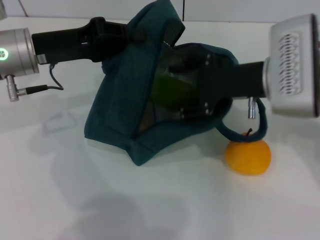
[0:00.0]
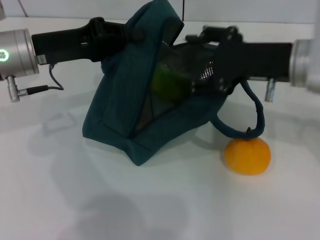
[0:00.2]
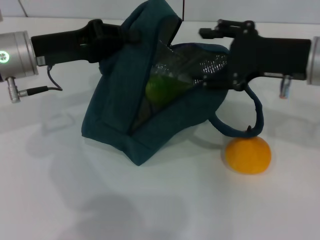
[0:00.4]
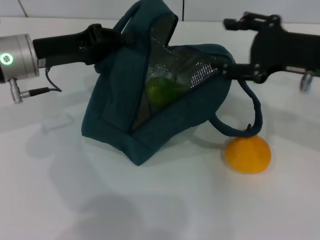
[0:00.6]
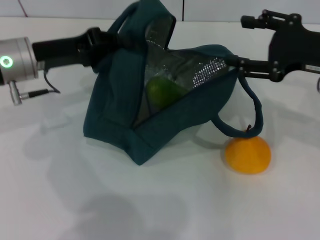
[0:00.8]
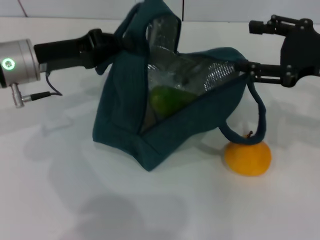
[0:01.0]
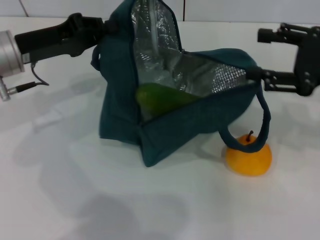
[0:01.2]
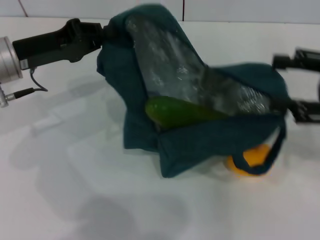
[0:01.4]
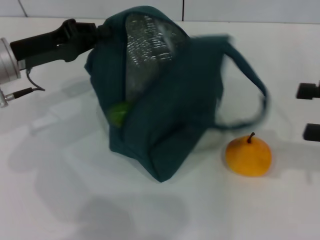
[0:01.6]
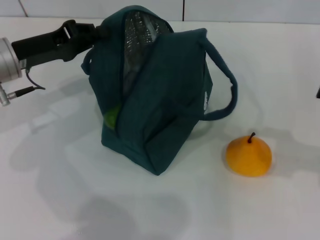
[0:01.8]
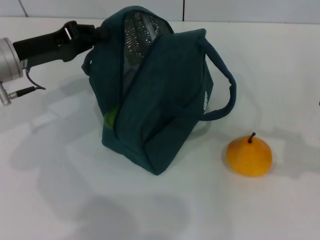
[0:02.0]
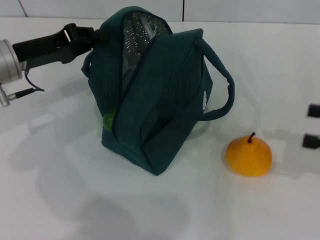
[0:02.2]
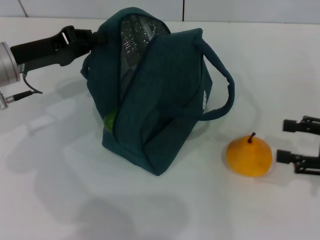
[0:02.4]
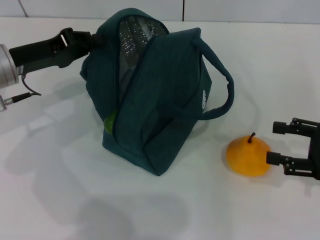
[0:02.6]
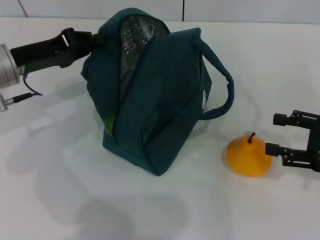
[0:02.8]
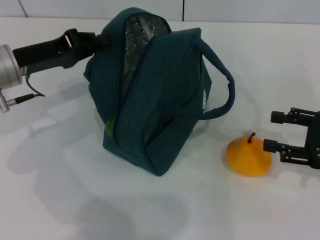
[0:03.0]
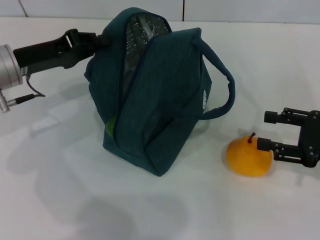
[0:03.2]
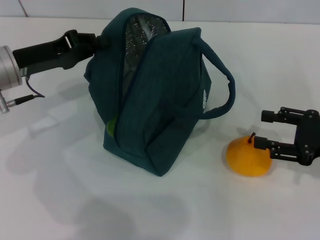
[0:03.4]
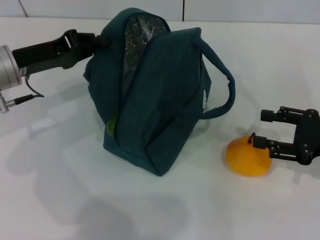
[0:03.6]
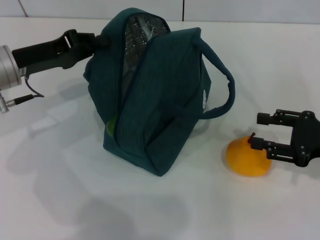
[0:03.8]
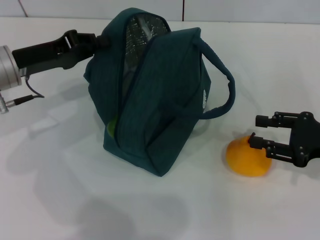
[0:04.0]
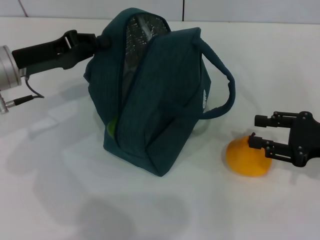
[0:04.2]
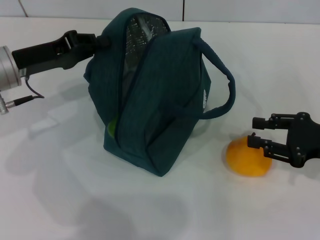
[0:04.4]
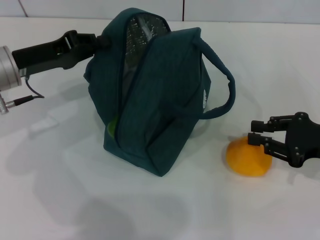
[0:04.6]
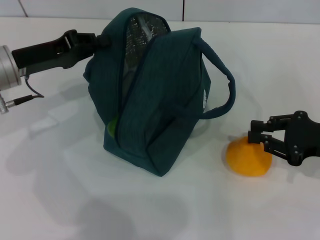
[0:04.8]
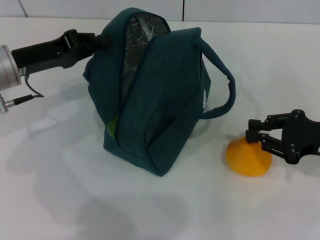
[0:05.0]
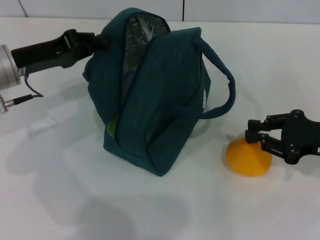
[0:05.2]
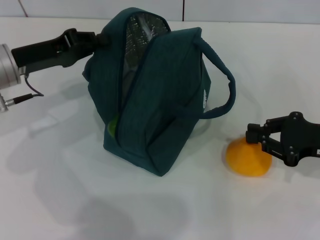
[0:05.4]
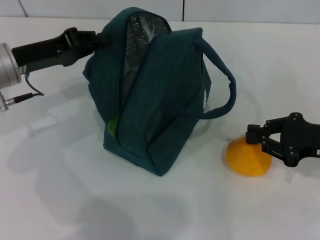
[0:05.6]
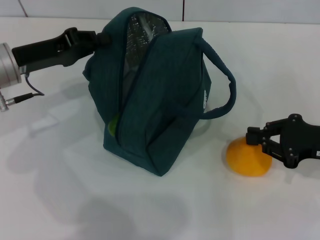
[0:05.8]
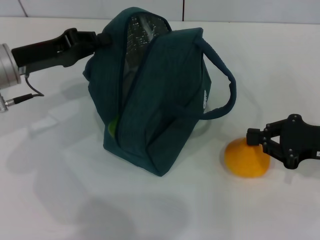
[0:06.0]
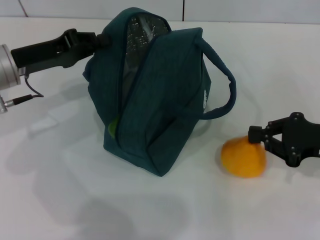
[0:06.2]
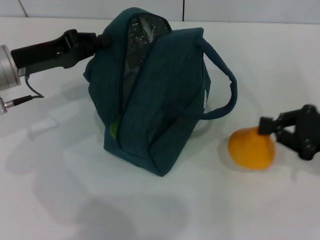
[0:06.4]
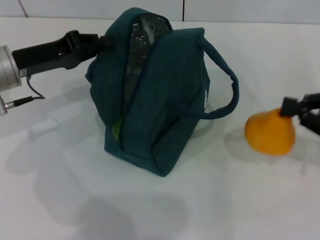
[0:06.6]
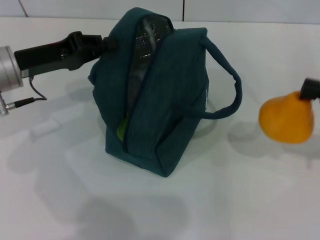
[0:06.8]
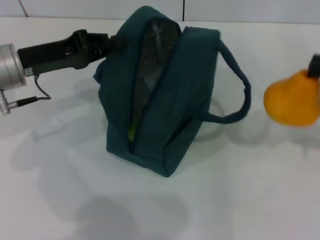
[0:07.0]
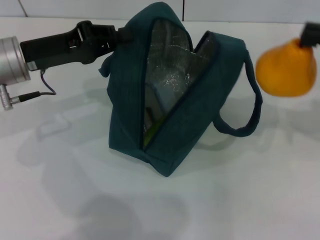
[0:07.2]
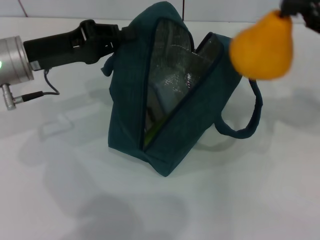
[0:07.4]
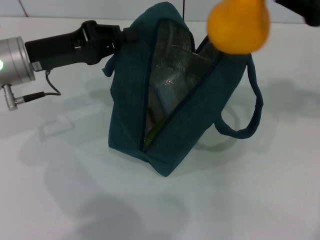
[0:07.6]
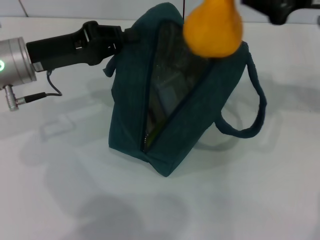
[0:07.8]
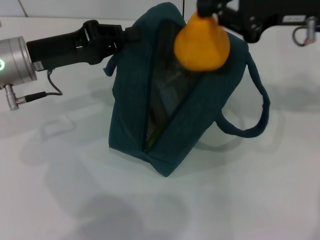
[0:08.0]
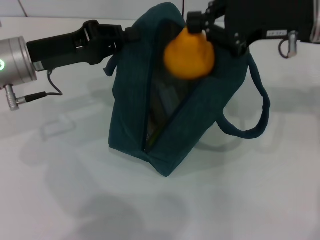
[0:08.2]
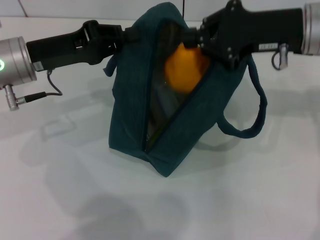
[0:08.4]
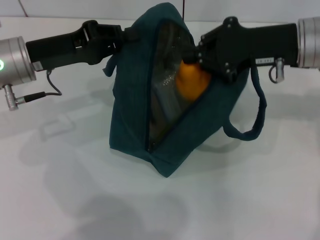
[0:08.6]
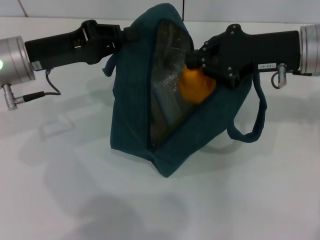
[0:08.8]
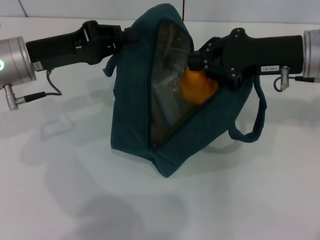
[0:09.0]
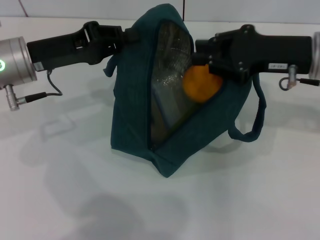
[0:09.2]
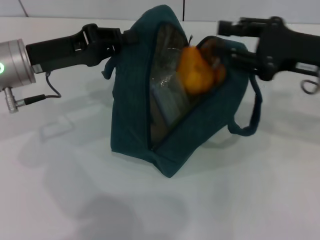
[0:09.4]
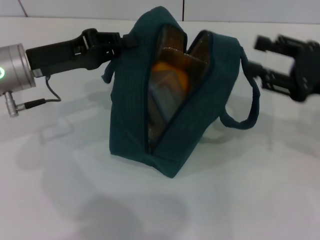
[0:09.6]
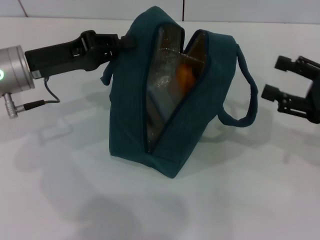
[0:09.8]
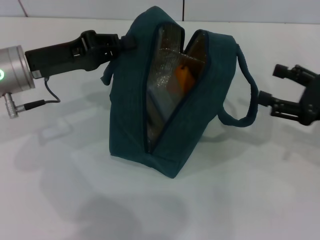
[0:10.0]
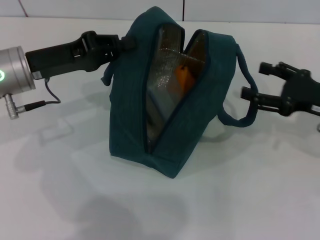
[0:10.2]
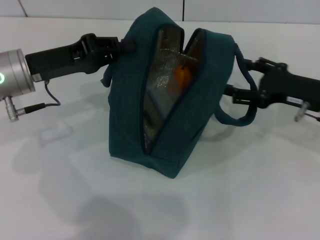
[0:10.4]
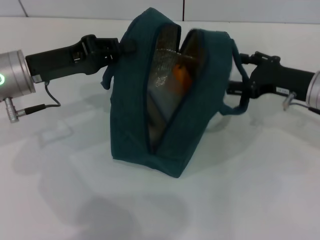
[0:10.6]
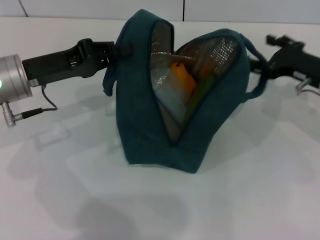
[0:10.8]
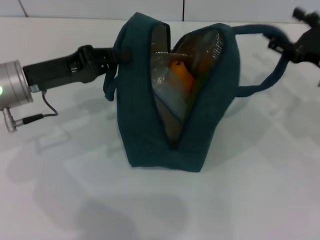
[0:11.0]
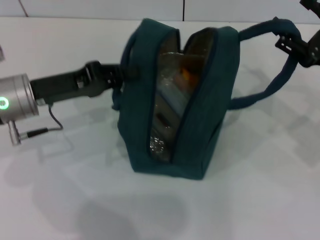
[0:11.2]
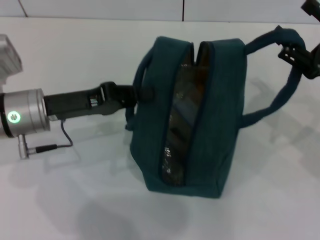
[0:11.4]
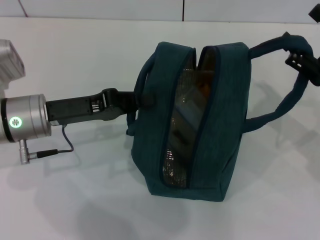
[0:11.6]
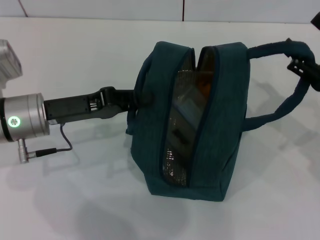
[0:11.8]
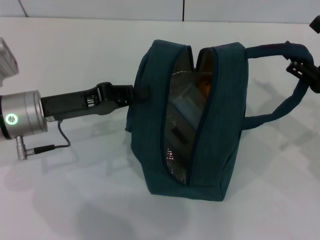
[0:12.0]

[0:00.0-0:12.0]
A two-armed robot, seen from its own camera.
Step, 0:00.4 to 0:05.6: Grab the pear with your right hand.
0:00.0 to 0:01.6: The right gripper travels to the right by approximately 20 cm.
0:01.6 to 0:03.0: The right gripper is displaced downward by approximately 10 cm.
0:03.0 to 0:04.4: The grippers stay close to where they were, moving slightly.
0:04.4 to 0:06.0: The right gripper closes up.
0:06.0 to 0:07.6: The right gripper is displaced upward by some 15 cm.
0:07.6 to 0:09.0: The right gripper travels downward and to the left by some 10 cm.
0:09.0 to 0:10.4: The right gripper is displaced downward and to the right by about 10 cm, and opens its fingers.
0:10.4 to 0:12.0: The right gripper travels backward by roughly 5 cm.

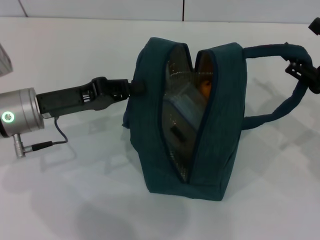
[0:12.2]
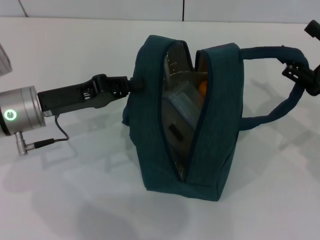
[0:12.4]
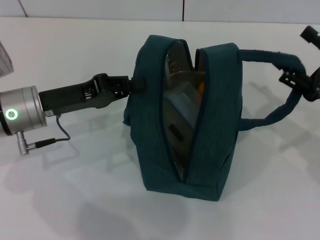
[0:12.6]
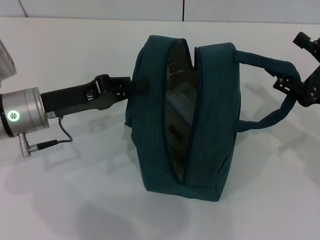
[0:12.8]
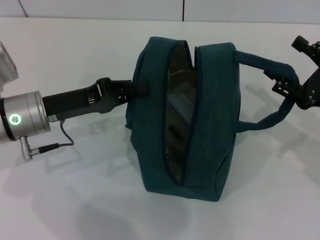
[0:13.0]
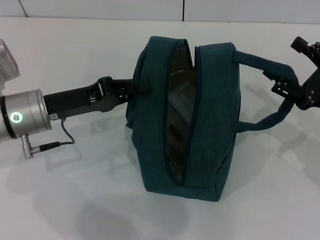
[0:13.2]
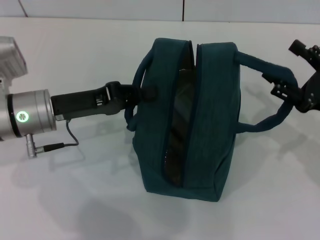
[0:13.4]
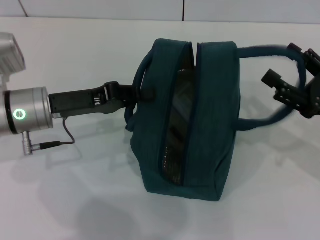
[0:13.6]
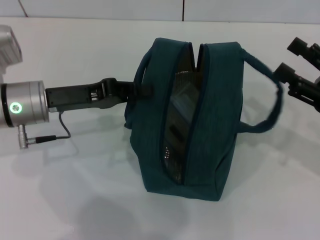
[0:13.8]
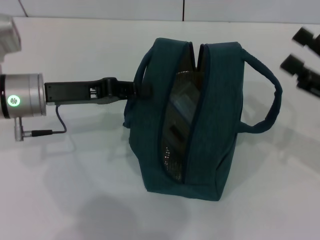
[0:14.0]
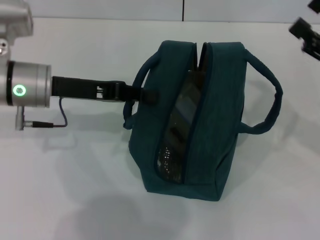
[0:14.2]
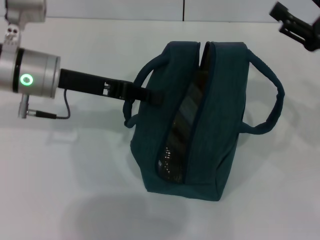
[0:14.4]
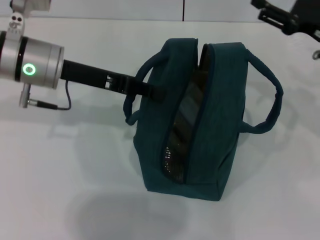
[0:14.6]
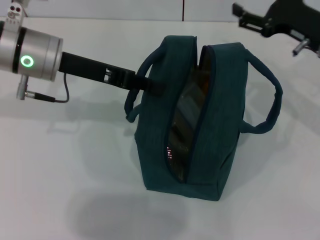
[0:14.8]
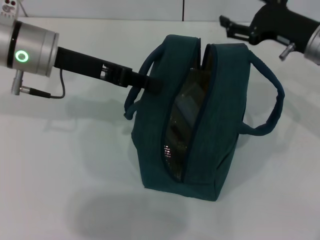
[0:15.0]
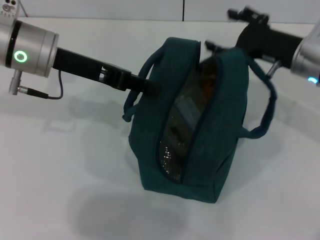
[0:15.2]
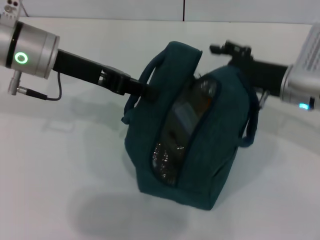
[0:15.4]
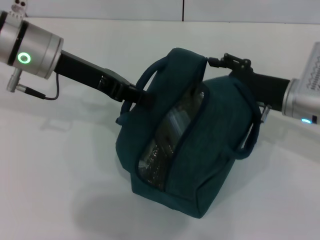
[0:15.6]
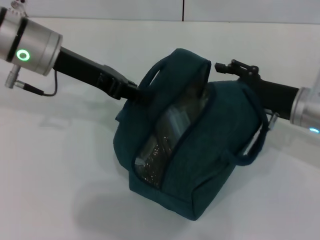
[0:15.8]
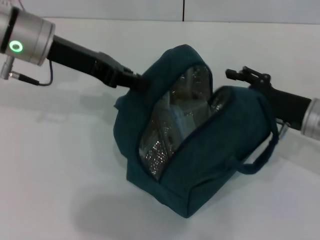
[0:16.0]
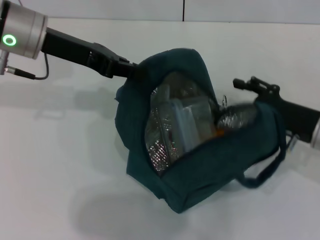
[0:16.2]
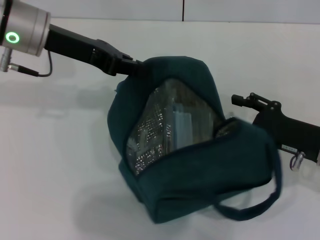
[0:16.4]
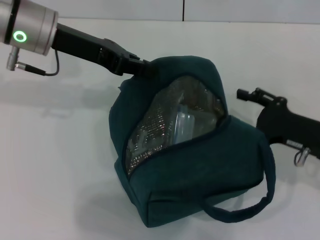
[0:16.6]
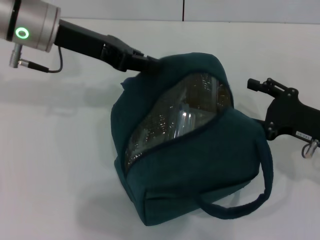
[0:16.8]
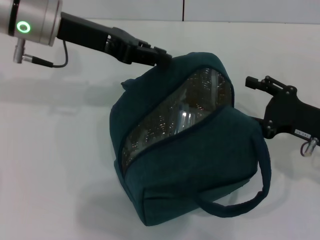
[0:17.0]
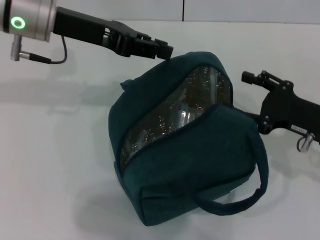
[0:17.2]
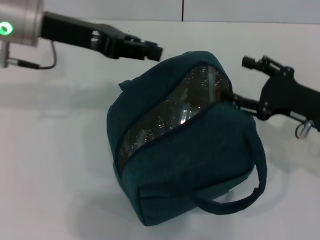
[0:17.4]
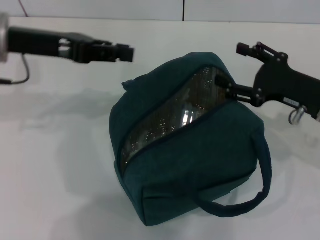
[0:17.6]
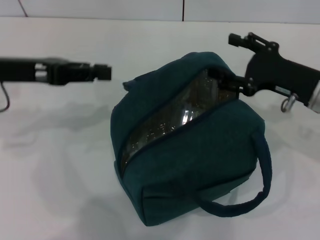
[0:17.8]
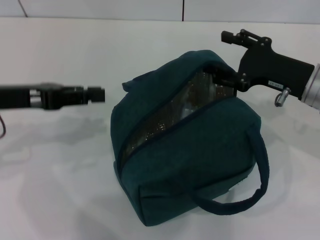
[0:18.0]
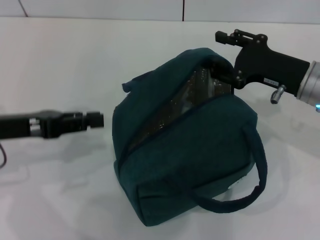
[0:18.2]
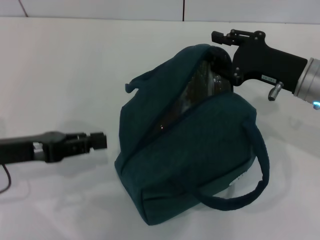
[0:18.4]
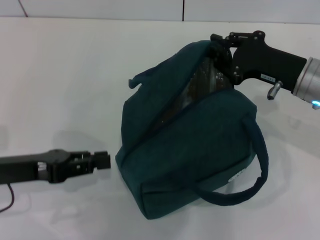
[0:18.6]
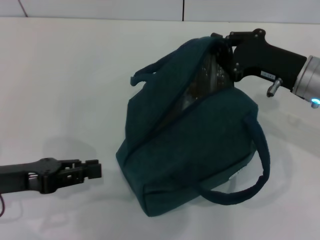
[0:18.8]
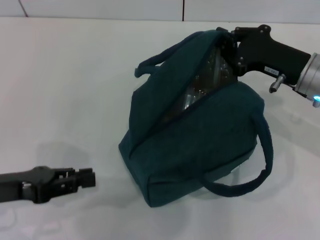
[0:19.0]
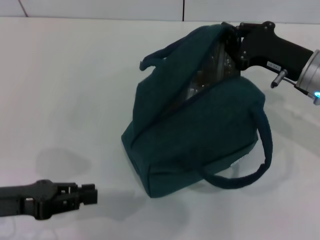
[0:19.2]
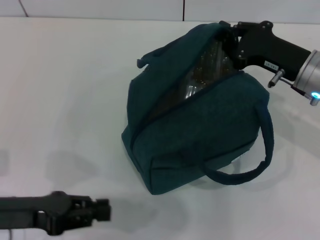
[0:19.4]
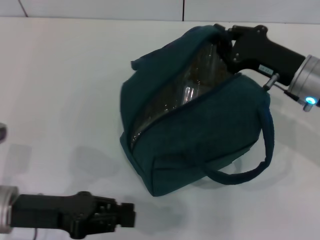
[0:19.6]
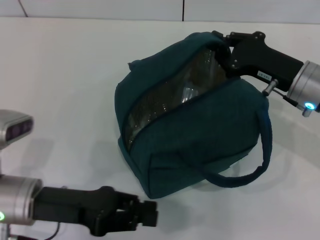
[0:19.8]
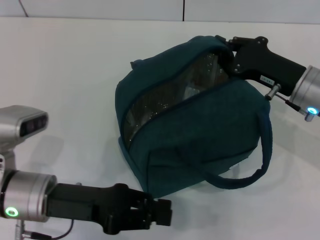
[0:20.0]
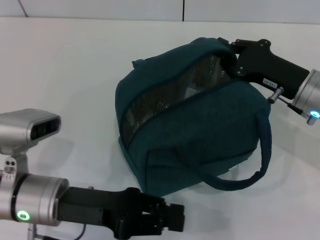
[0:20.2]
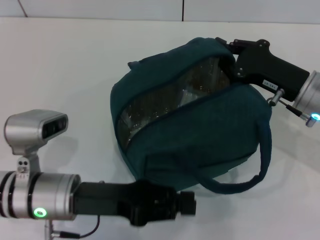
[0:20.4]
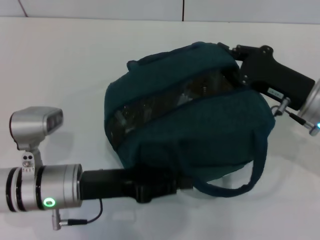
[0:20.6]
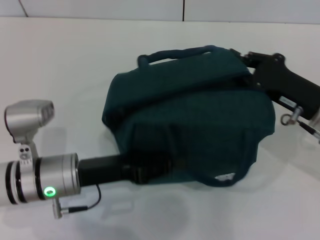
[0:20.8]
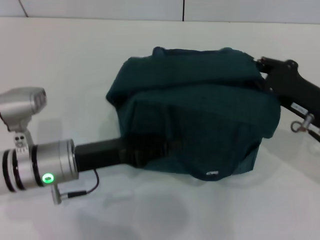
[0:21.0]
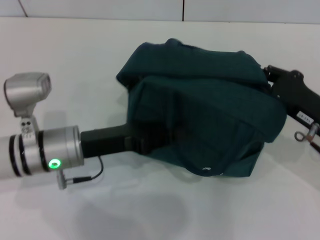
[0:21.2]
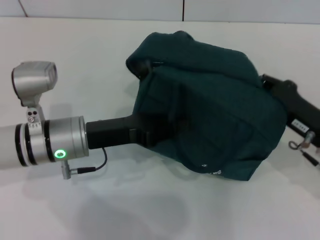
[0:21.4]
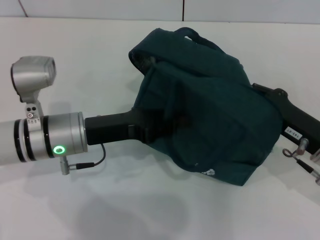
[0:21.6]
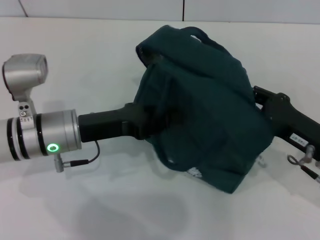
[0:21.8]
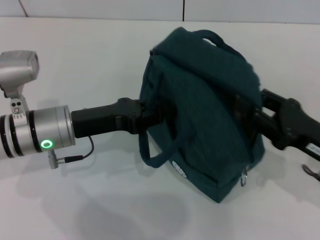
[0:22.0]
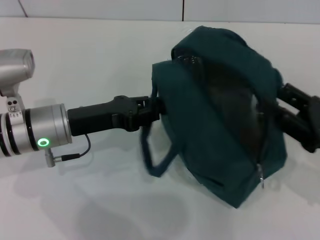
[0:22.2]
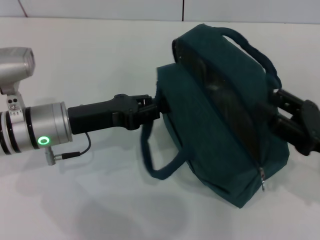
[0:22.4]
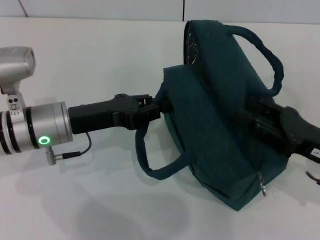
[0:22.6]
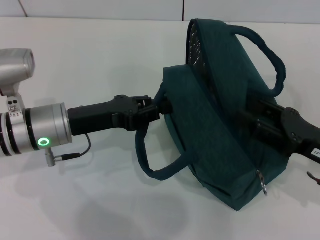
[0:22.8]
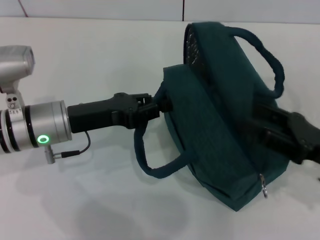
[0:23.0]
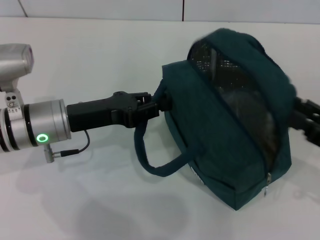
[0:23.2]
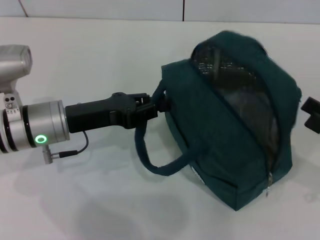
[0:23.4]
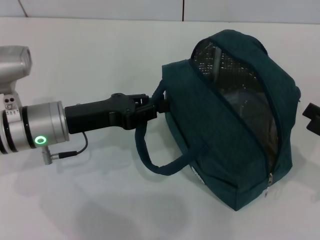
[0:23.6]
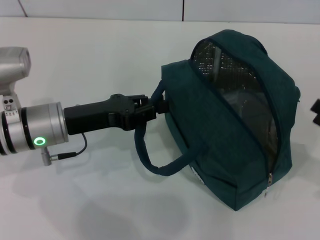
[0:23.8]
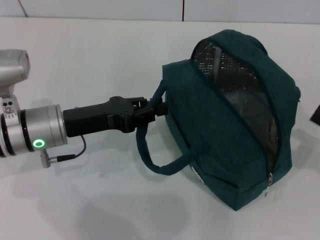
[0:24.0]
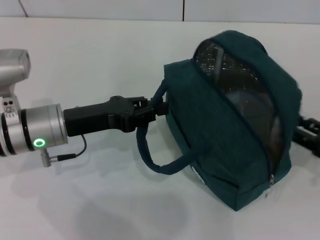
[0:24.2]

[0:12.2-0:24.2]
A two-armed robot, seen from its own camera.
0:13.8 to 0:15.2: The left gripper heads upward and forward, covering approximately 10 cm. Meanwhile the right gripper goes approximately 15 cm forward and to the left.
0:15.2 to 0:16.6: The right gripper is displaced backward by about 10 cm.
0:16.6 to 0:18.2: The left gripper moves backward, to the left and downward, about 15 cm. Meanwhile the right gripper shifts some 5 cm forward.
0:18.2 to 0:19.8: The left gripper travels downward, to the right and backward by some 10 cm, while the right gripper closes.
0:19.8 to 0:21.2: The left gripper moves forward, some 5 cm. Meanwhile the right gripper heads backward, covering approximately 5 cm.
0:21.2 to 0:22.6: The right gripper opens up.
0:22.6 to 0:24.2: The right gripper moves to the right, about 10 cm.
